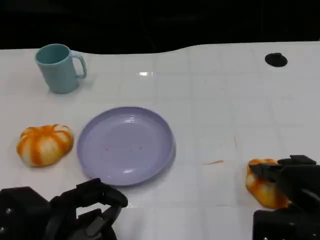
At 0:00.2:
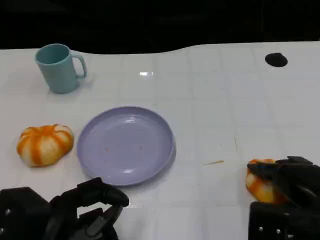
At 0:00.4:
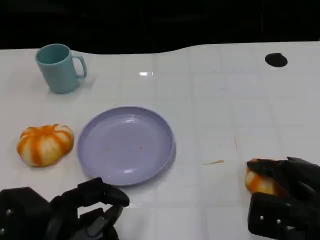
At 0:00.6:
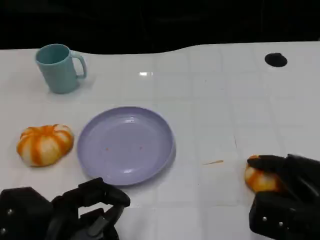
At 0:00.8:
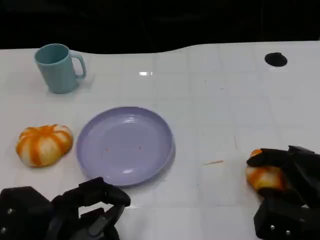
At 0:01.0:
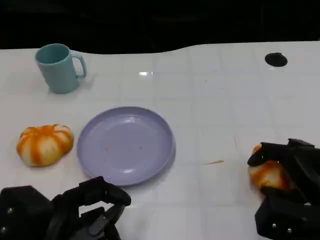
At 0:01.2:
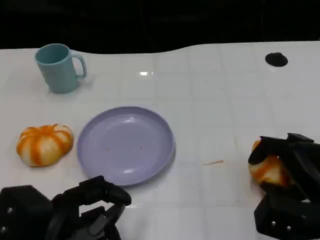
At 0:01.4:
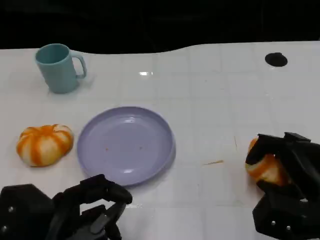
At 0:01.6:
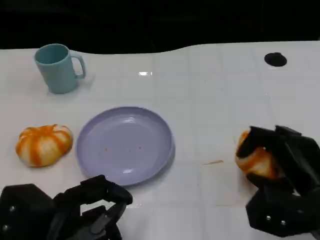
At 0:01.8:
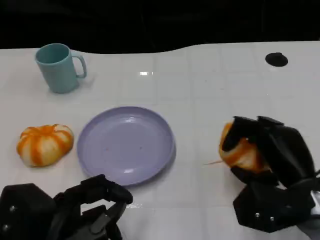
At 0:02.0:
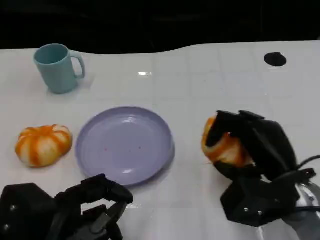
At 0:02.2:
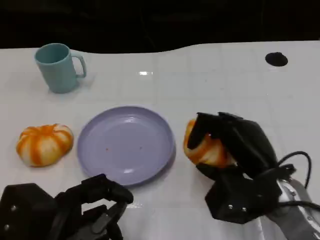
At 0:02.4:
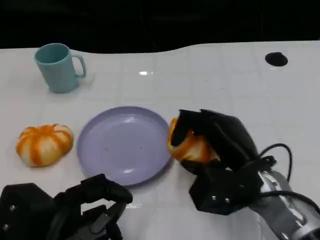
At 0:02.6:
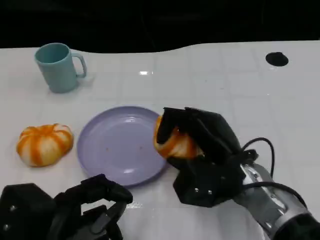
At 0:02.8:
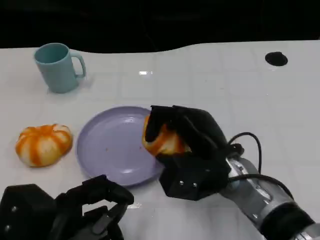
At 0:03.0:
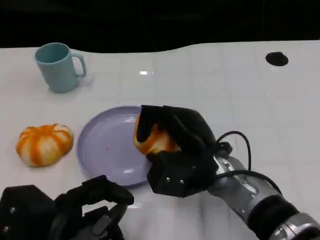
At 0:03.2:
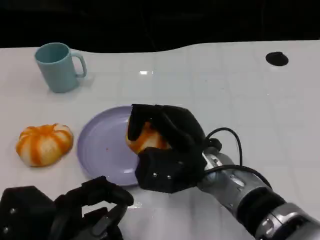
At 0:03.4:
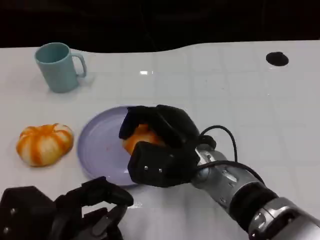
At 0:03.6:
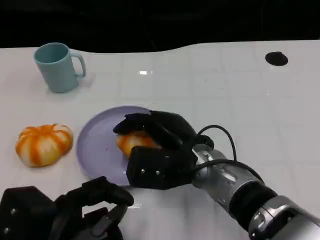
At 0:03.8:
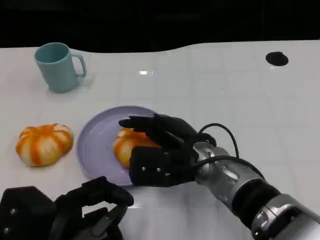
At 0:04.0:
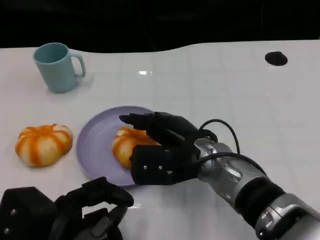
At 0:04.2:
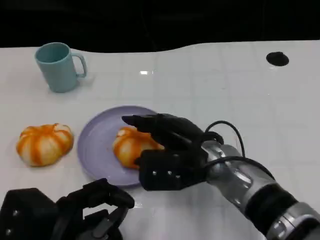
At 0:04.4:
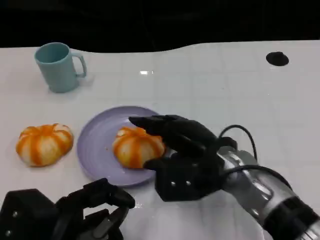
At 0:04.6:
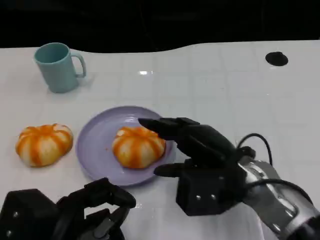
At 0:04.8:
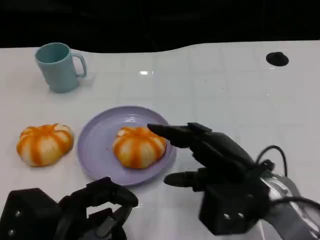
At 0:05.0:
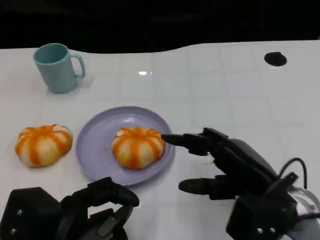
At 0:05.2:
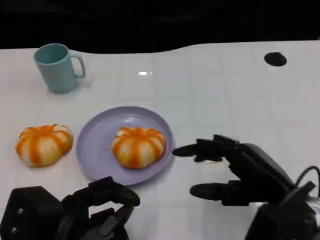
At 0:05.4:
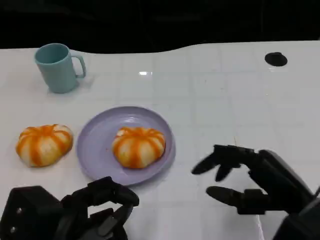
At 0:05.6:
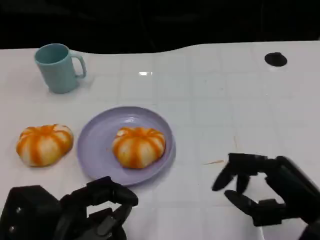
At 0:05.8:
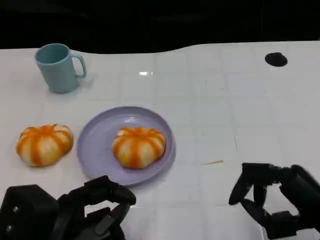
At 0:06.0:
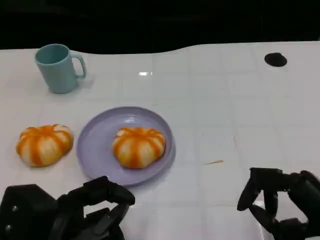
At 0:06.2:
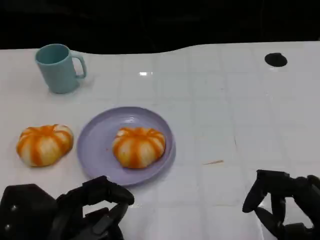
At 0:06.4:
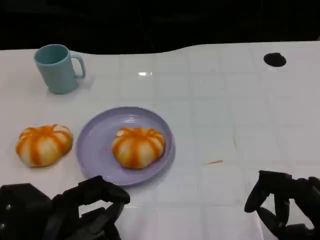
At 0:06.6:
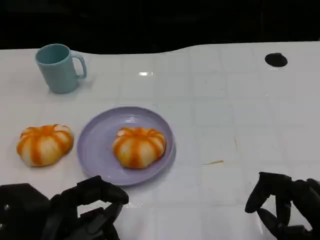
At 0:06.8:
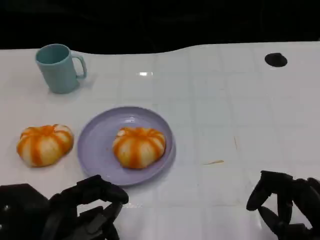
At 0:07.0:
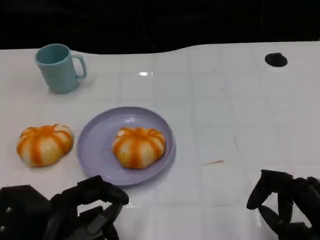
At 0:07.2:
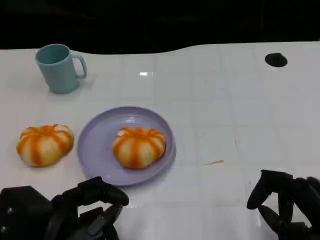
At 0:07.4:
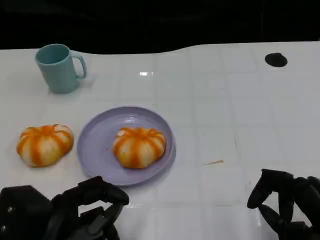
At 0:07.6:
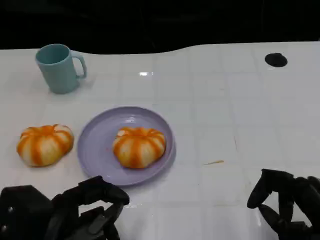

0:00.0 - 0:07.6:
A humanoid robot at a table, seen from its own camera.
Task of the whole recording: Grasp the bread from the table and place it into the plate.
0:01.6 - 0:03.0: The right hand travels to the left by approximately 15 cm.
0:03.0 - 0:04.6: The right hand goes about 5 cm to the right.
0:04.6 - 0:06.0: The right hand shifts roughly 15 cm to the right and backward.
0:06.0 - 0:07.6: There are only small adjustments of the hands.

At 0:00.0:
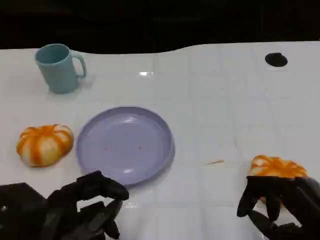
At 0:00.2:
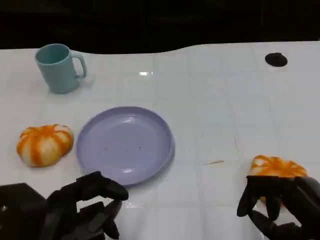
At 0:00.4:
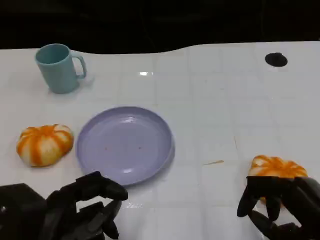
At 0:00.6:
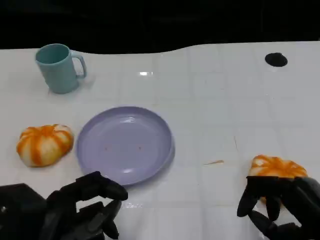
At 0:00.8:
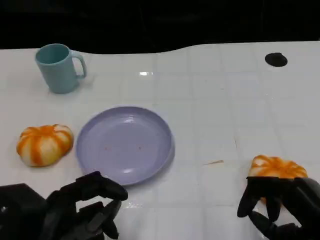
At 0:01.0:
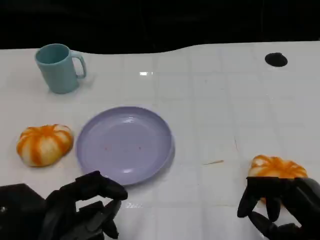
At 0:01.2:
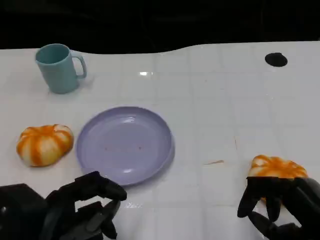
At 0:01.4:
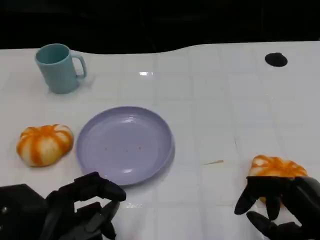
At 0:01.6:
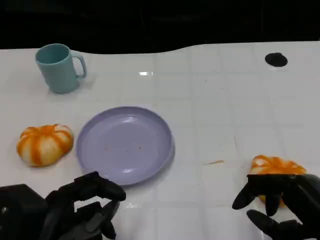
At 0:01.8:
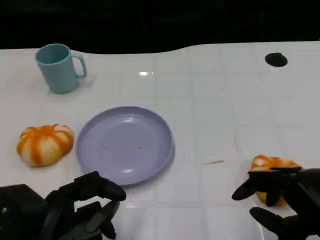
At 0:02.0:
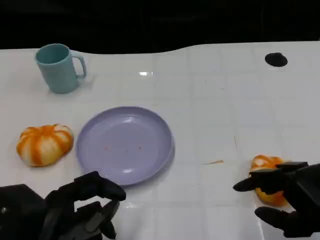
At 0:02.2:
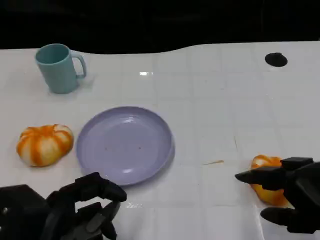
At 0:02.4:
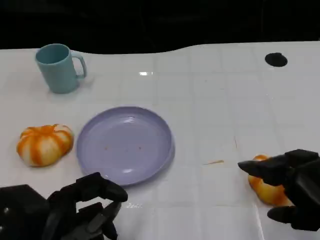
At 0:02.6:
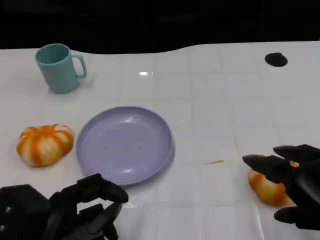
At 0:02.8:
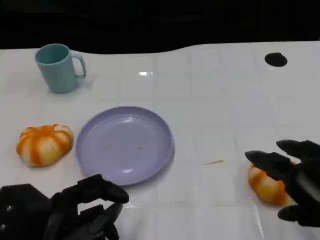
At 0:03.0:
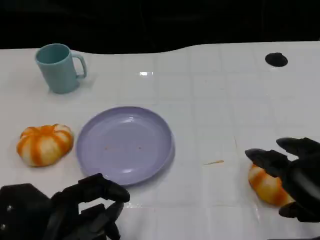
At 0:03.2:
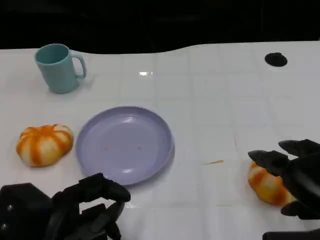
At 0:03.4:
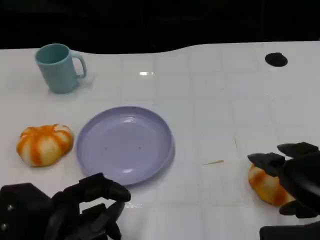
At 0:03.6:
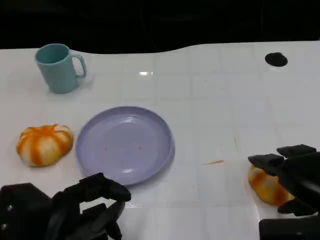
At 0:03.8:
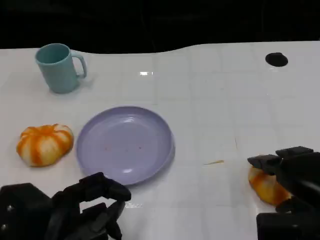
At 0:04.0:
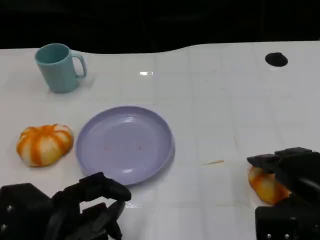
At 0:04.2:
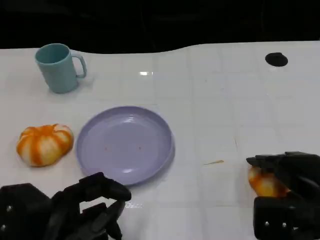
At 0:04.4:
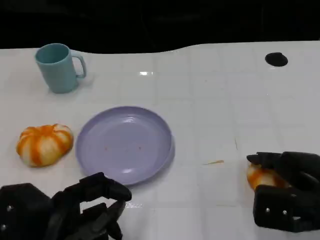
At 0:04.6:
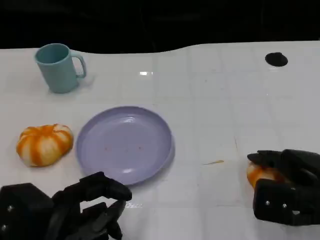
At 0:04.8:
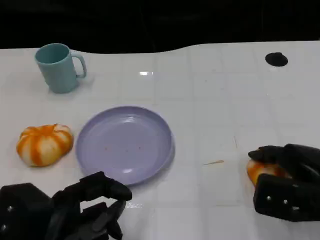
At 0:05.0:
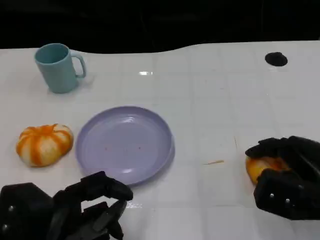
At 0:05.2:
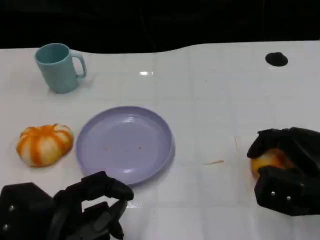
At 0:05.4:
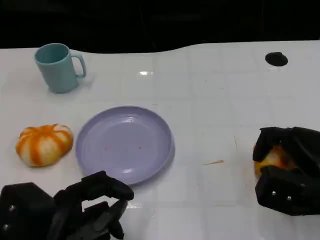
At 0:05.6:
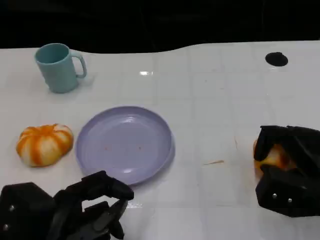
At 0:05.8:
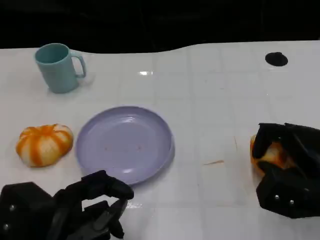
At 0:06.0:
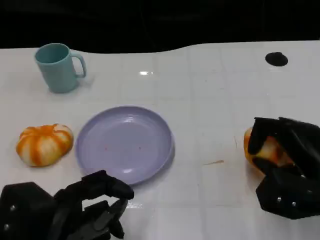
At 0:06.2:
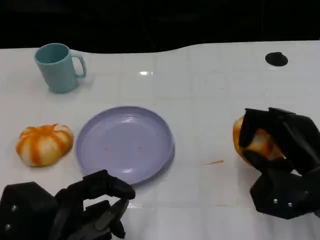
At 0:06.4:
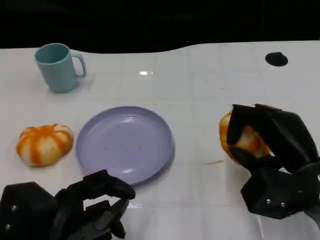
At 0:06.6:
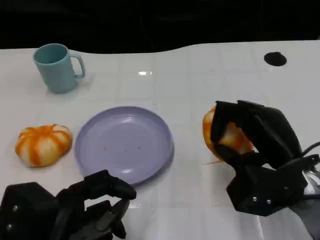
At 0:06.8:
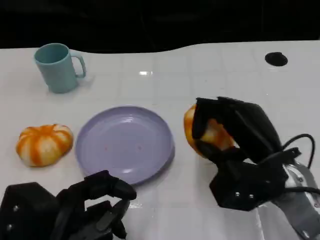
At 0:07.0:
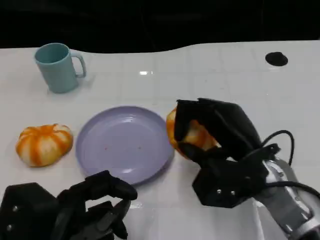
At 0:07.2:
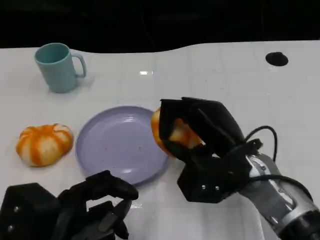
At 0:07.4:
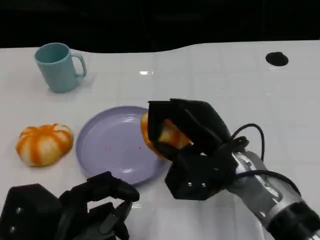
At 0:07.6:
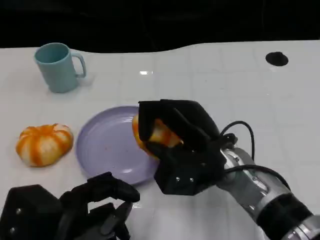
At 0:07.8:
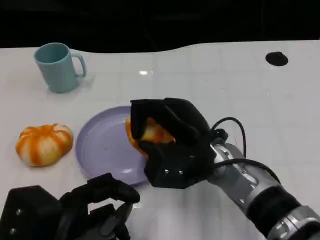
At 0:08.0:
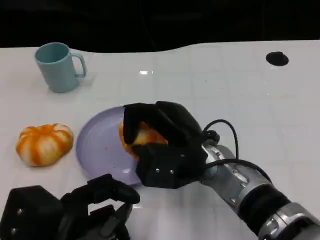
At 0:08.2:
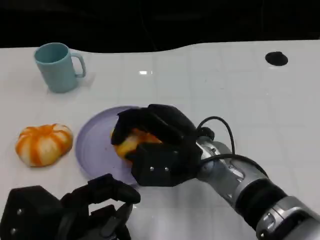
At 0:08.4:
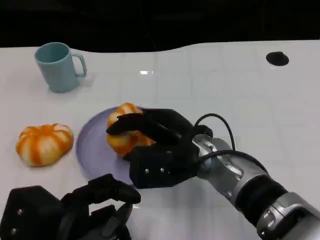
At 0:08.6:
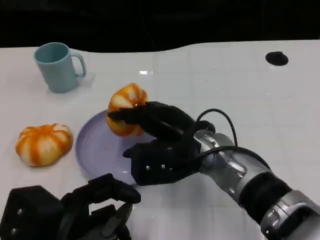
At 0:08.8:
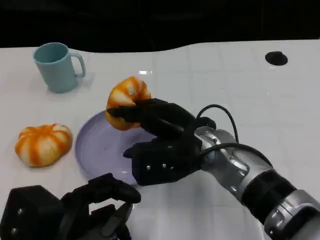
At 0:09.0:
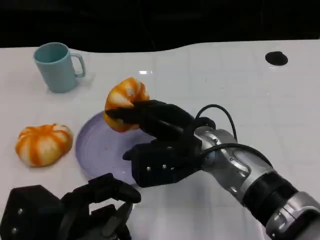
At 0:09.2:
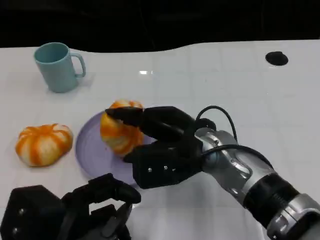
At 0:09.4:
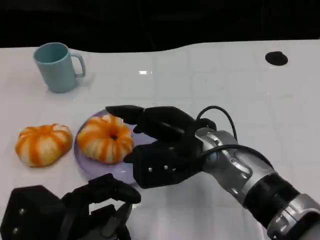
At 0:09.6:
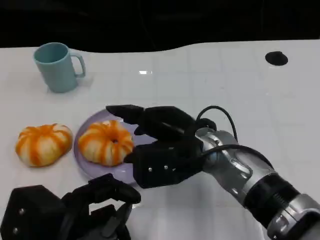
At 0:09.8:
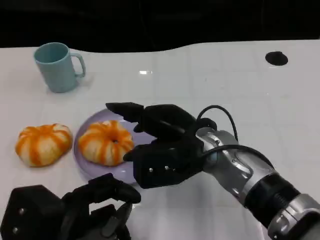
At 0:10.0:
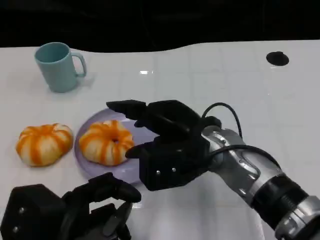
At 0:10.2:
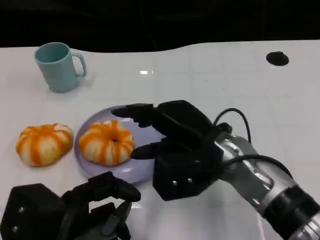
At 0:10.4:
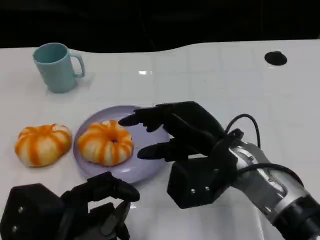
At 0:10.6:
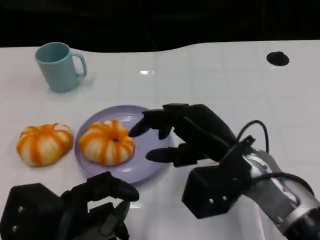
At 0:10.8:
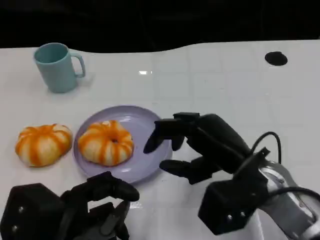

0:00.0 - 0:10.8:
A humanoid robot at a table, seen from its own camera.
Task of the whole recording: Grasp the bread from the table and place it into the plate.
0:00.0 - 0:01.6: Both hands stay put.
0:03.0 - 0:04.6: The right hand travels forward by roughly 5 cm.
0:06.2 - 0:07.8: The right hand heads to the left, covering approximately 15 cm.
0:09.2 - 0:10.8: The right hand is displaced to the right by roughly 10 cm.

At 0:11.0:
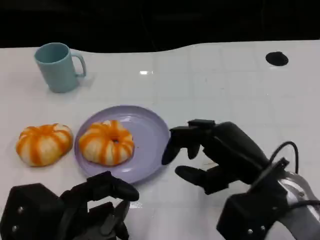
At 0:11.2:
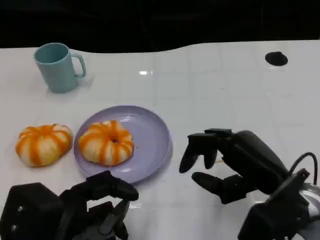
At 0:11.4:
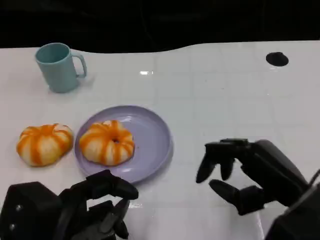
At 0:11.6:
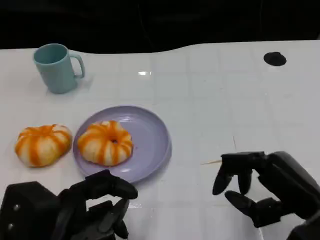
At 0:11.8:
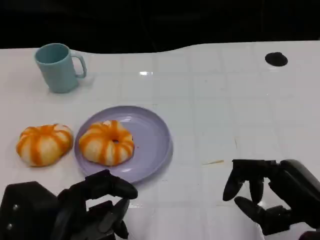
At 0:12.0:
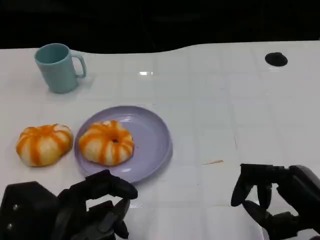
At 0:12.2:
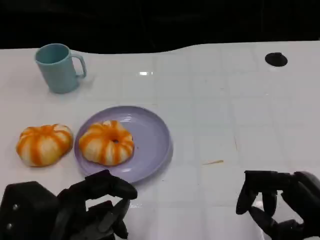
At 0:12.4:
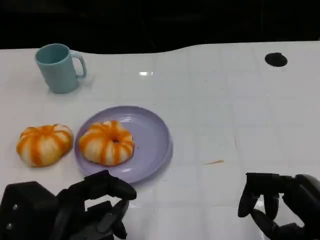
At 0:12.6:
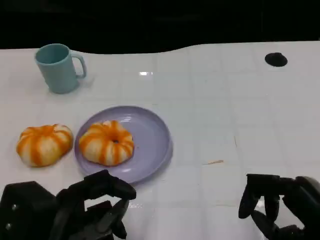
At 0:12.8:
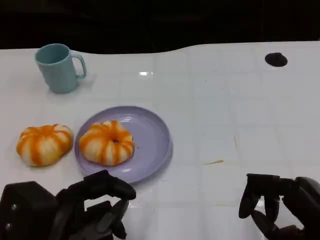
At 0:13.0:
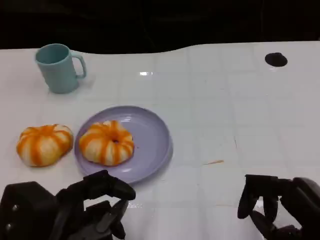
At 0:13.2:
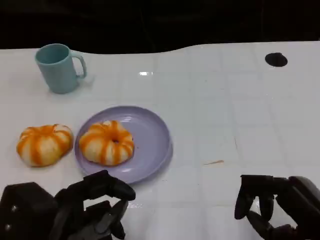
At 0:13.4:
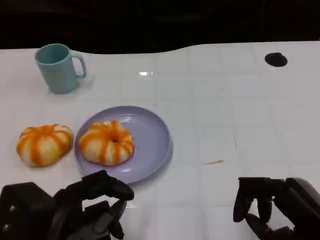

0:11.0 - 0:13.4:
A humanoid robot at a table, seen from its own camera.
Task of the whole recording: Grasp the bread from the table and place it into the plate.
0:11.0 - 0:12.2: The right hand travels to the right and backward by some 10 cm.
0:12.2 - 0:13.4: The hands move only a little.
